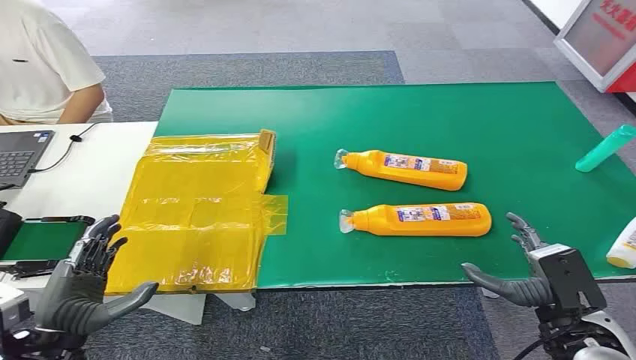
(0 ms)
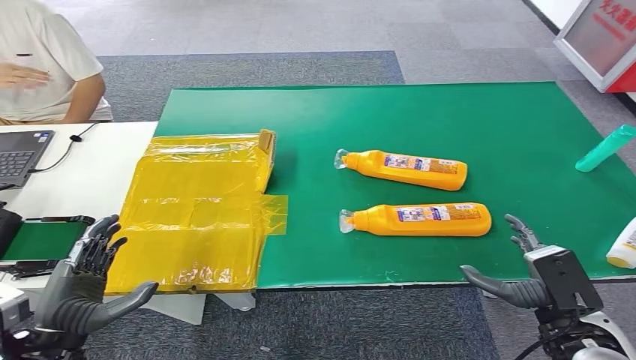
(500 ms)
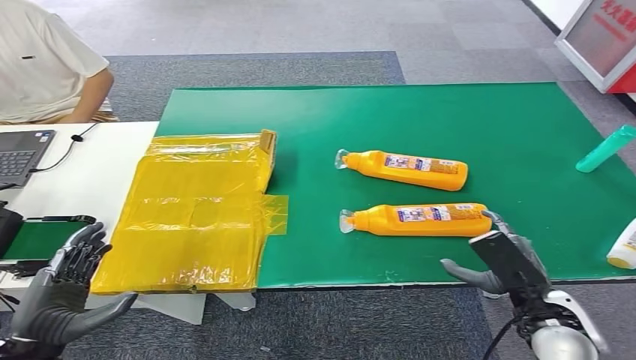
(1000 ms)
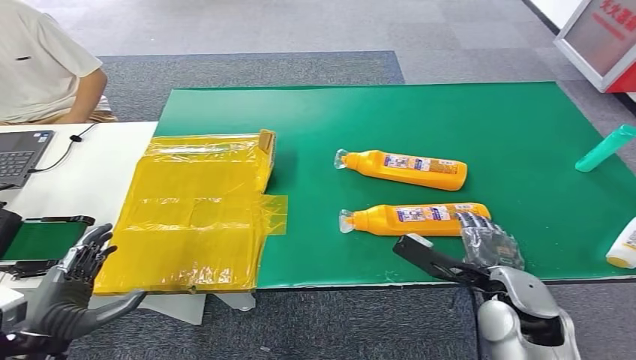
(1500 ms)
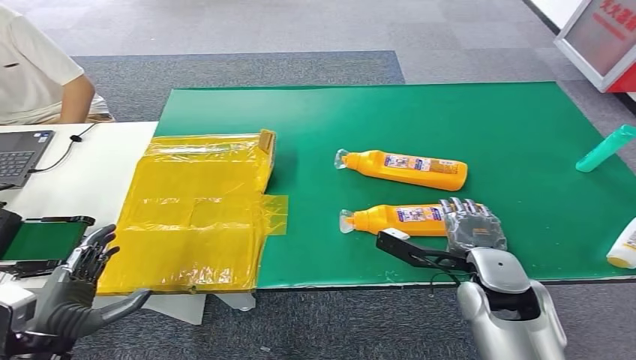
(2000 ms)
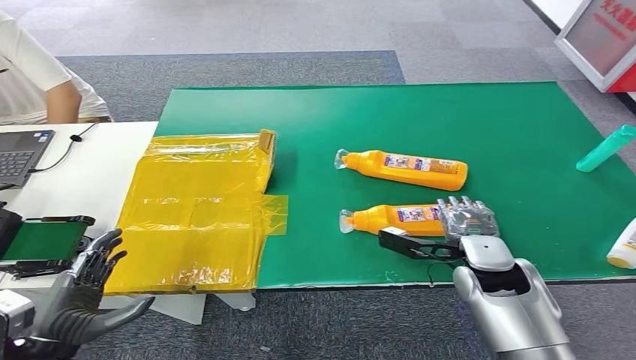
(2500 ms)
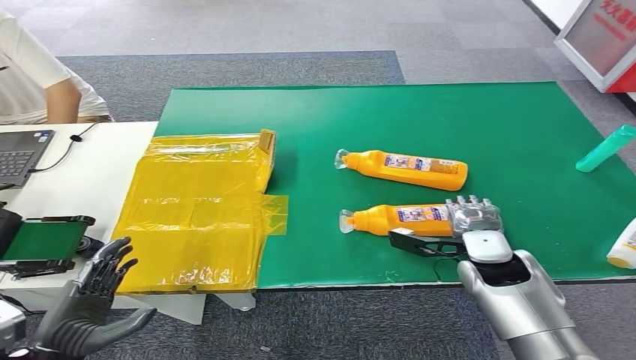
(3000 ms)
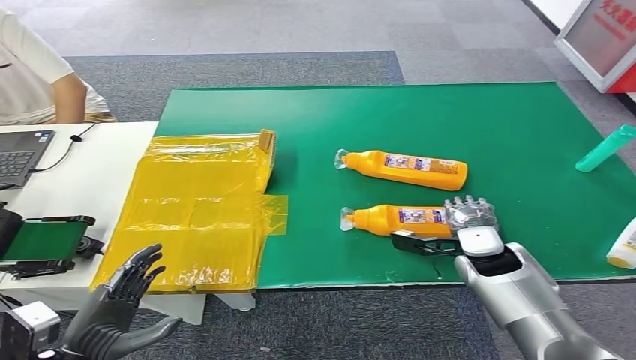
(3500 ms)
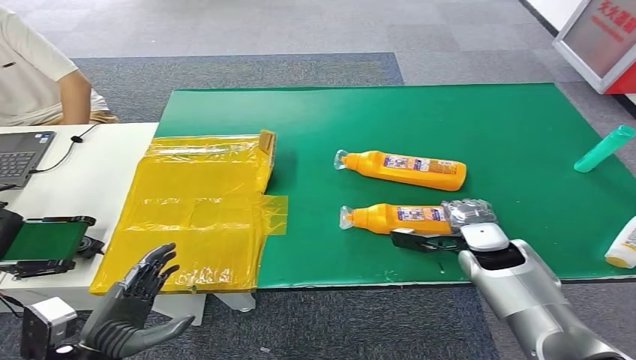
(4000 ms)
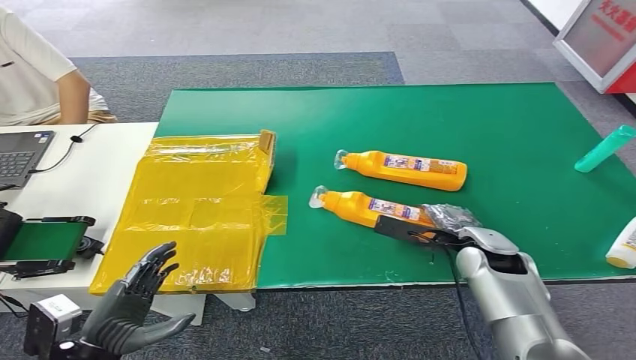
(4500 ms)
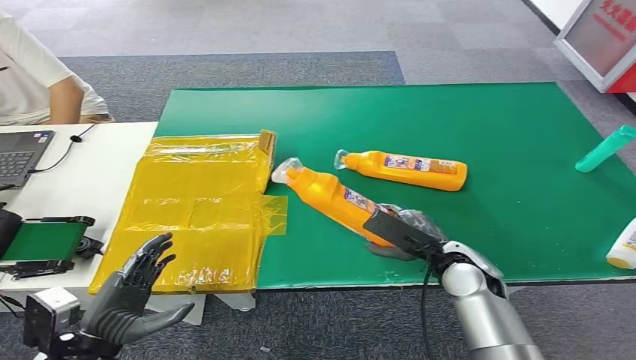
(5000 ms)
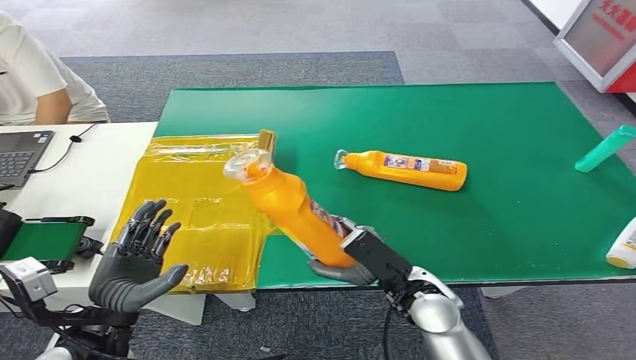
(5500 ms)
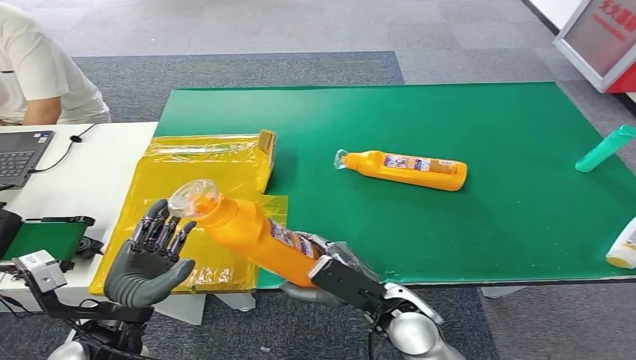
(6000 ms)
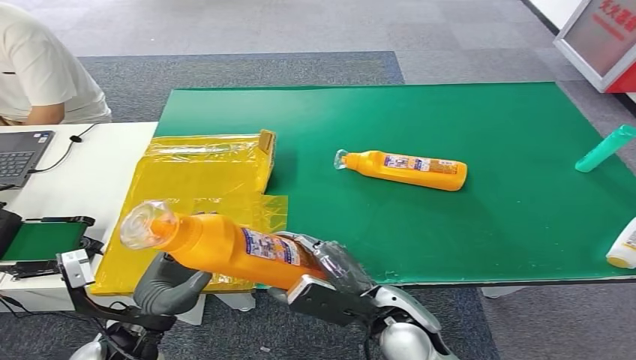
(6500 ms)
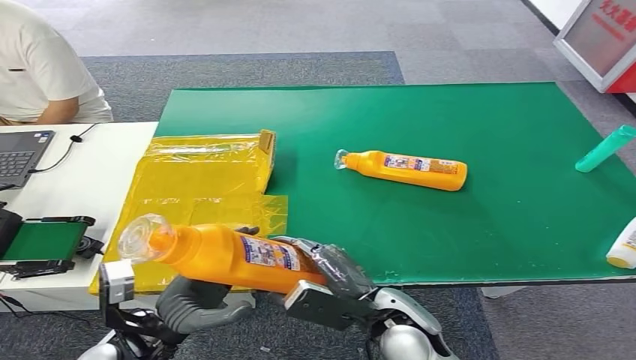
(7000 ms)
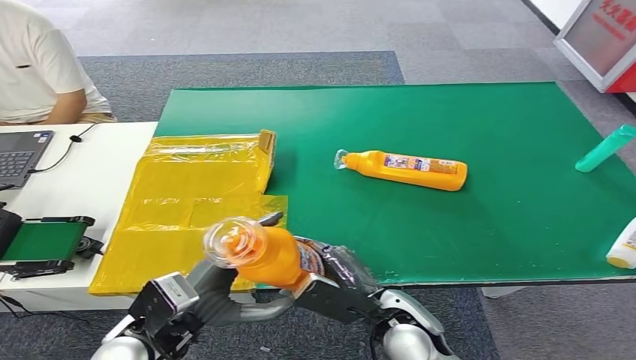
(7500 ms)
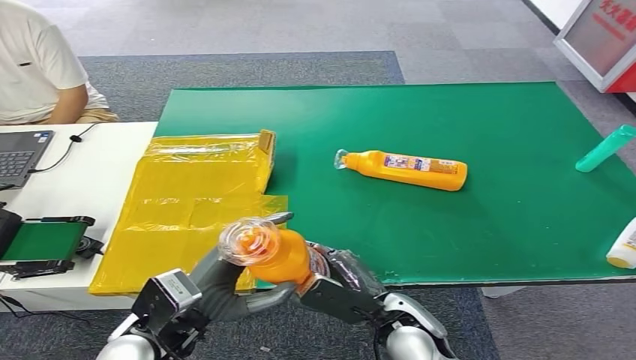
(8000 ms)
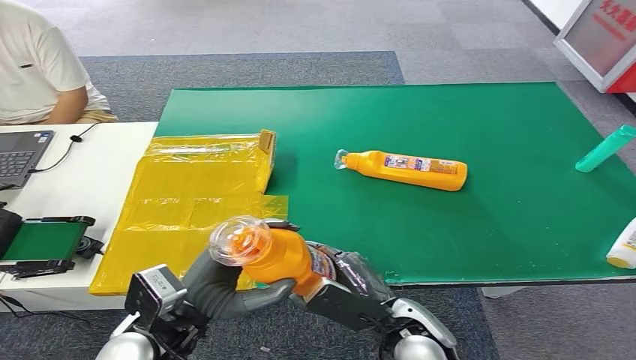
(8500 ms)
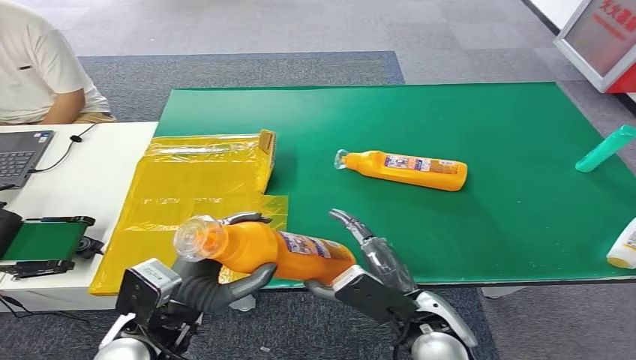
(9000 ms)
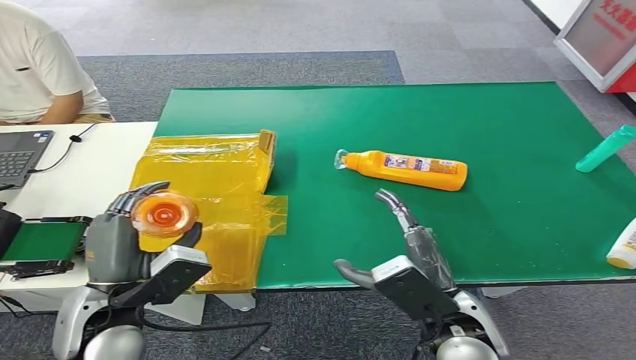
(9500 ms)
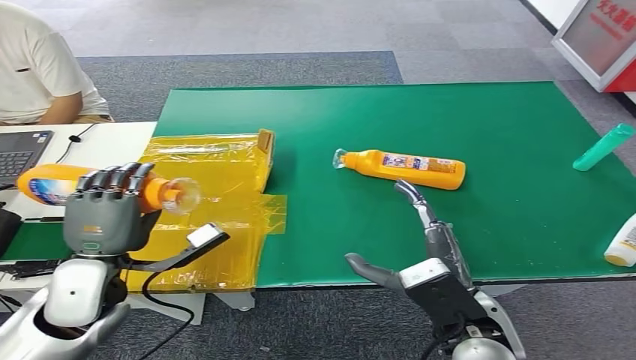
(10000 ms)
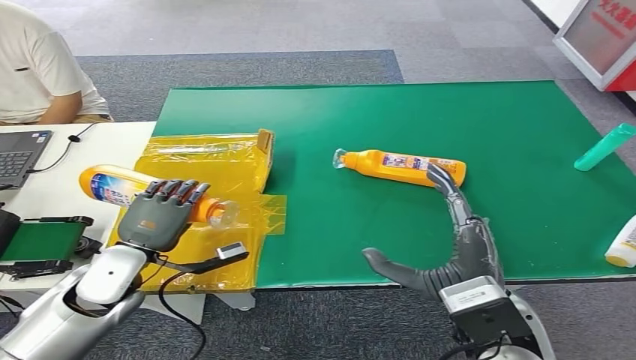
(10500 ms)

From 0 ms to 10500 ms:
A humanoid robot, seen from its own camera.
Step, from 0 ms to 5000 ms: Pick up the bottle from the table.
From 2000 ms to 4000 ms: The right hand moves forward and downward, some 10 cm. The left hand moves roughly 5 cm.
From 4000 ms to 6500 ms: The right hand travels to the left and backward by some 20 cm; the left hand goes some 10 cm to the right and forward.
From 6500 ms to 8500 ms: The left hand shifts some 5 cm to the right.

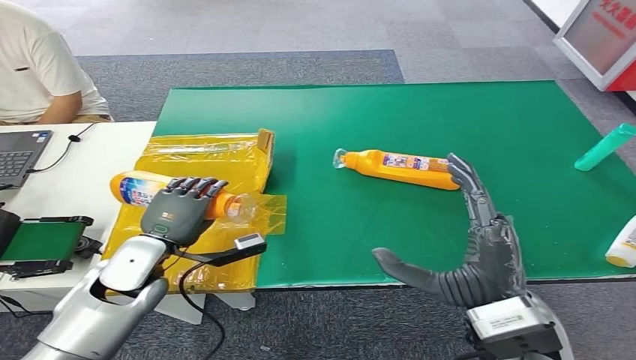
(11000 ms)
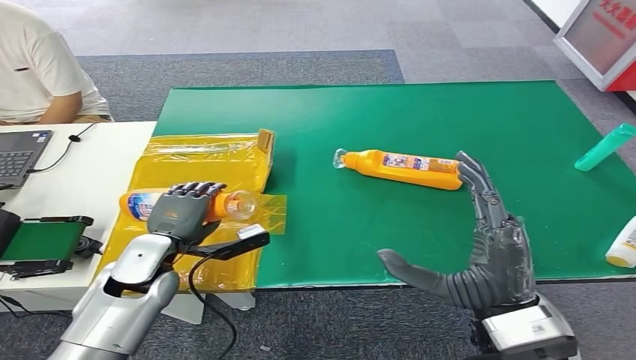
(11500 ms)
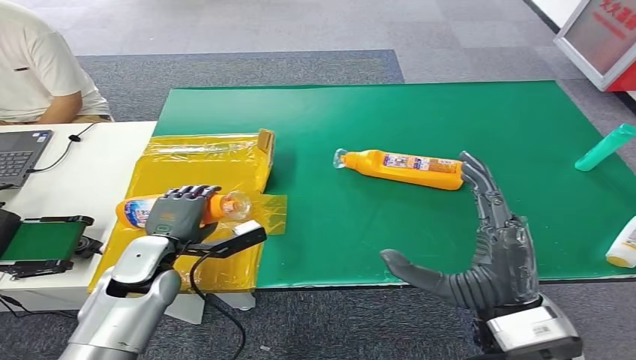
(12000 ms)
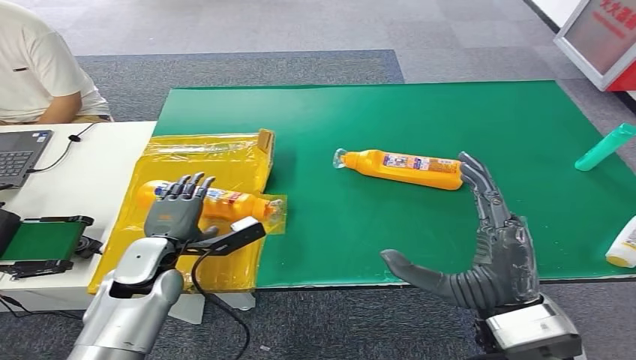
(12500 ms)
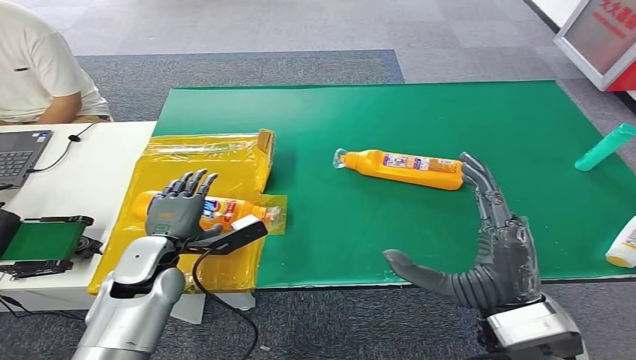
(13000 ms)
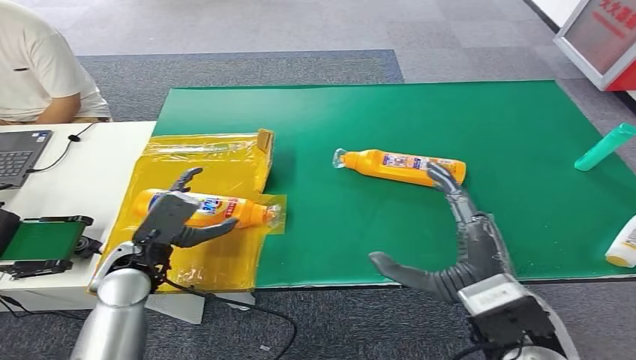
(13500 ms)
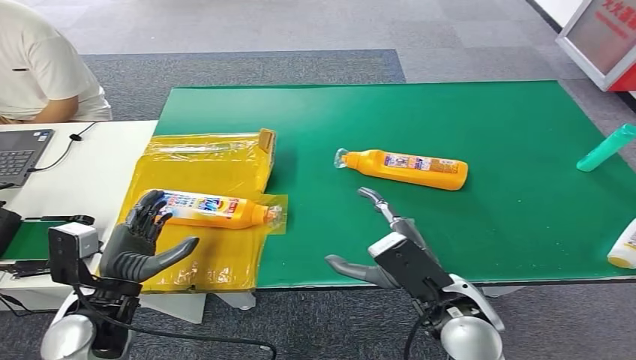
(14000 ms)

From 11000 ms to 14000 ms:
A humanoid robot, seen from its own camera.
Step, from 11000 ms to 14000 ms: Turn the bottle to the front side.
From 12500 ms to 14000 ms: The left hand travels backward by approximately 10 cm. The right hand heads downward, covering roughly 5 cm.

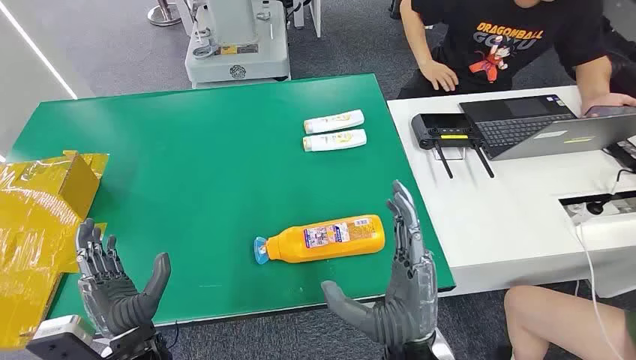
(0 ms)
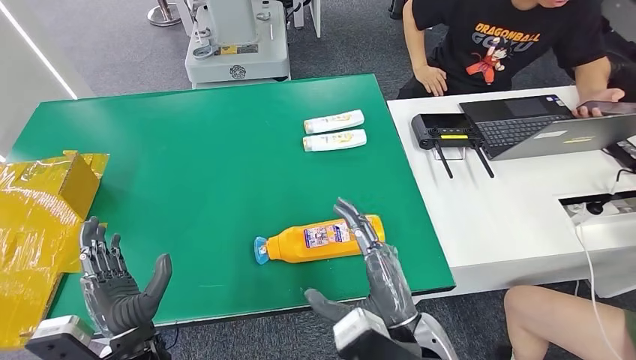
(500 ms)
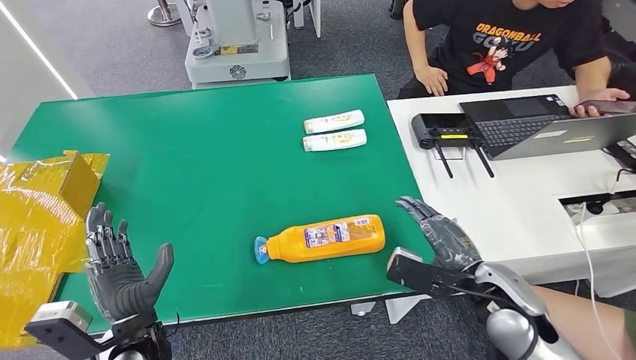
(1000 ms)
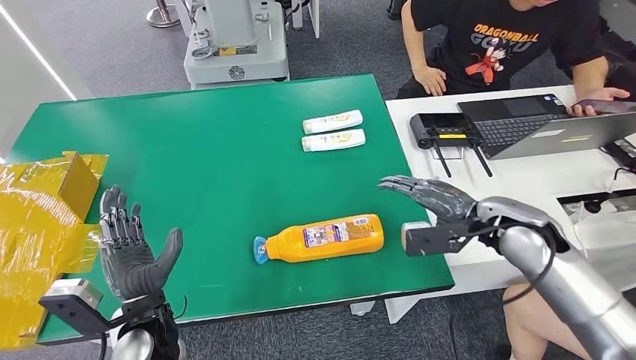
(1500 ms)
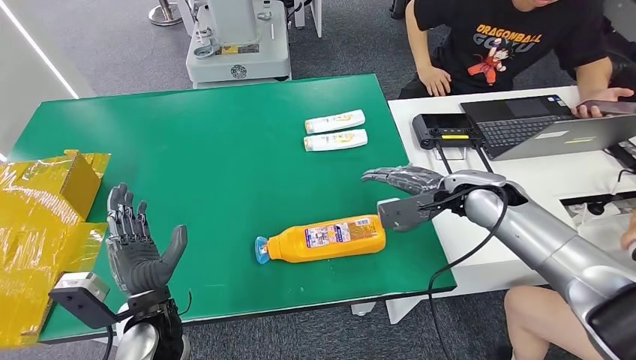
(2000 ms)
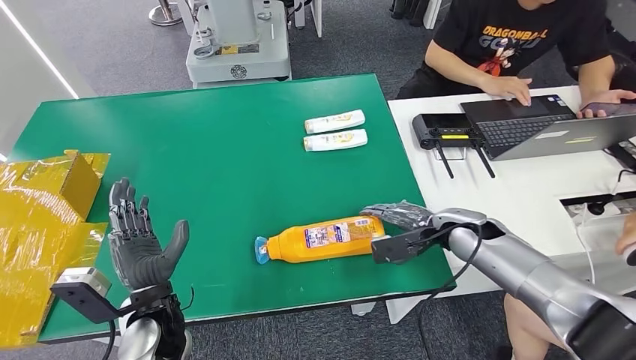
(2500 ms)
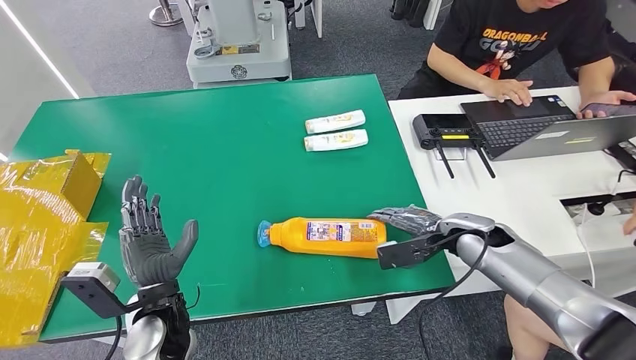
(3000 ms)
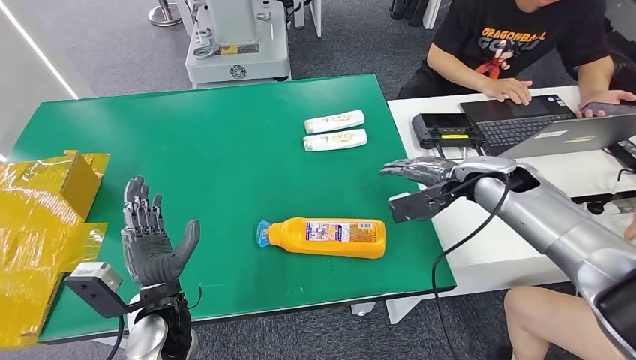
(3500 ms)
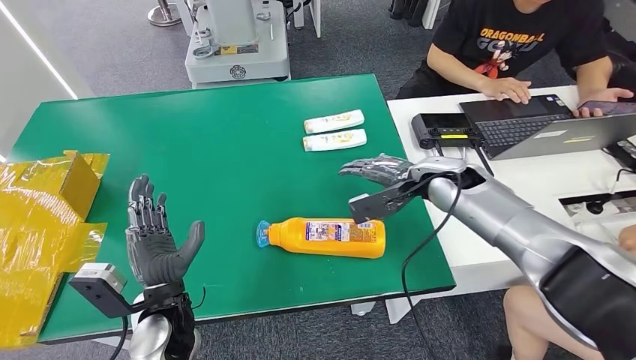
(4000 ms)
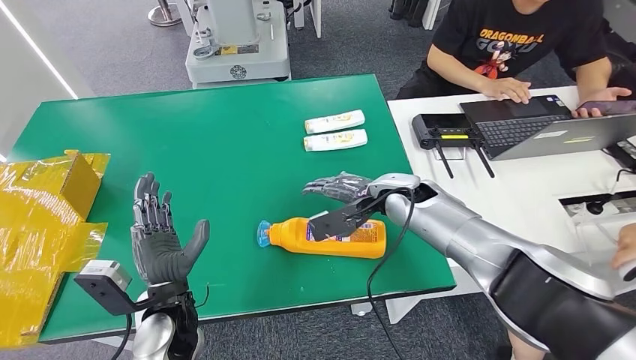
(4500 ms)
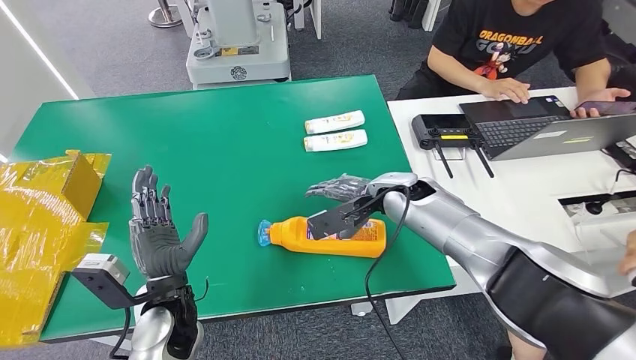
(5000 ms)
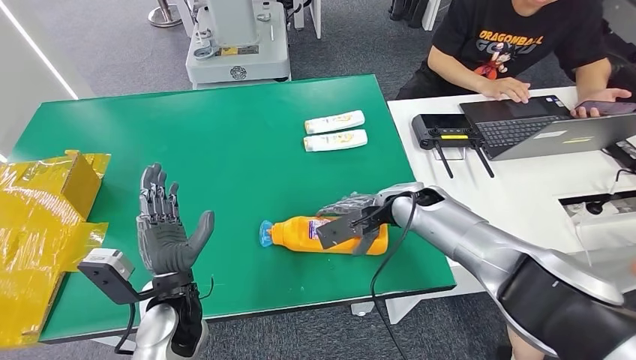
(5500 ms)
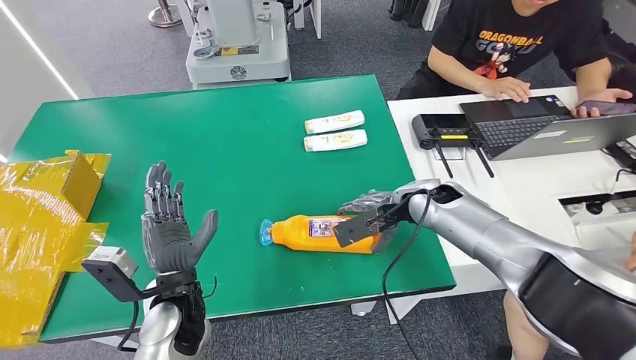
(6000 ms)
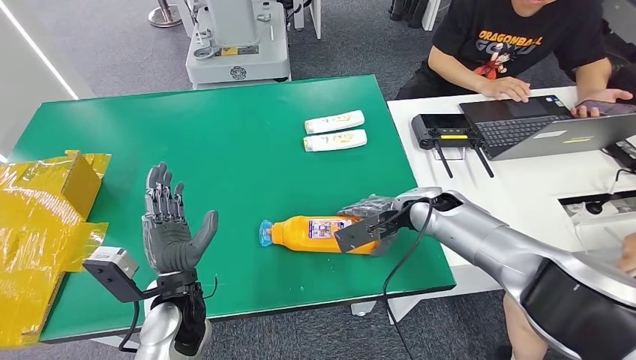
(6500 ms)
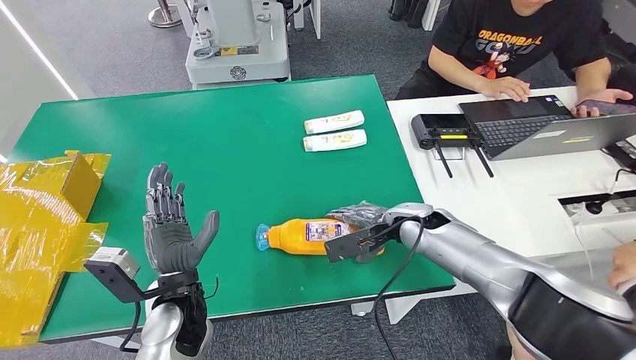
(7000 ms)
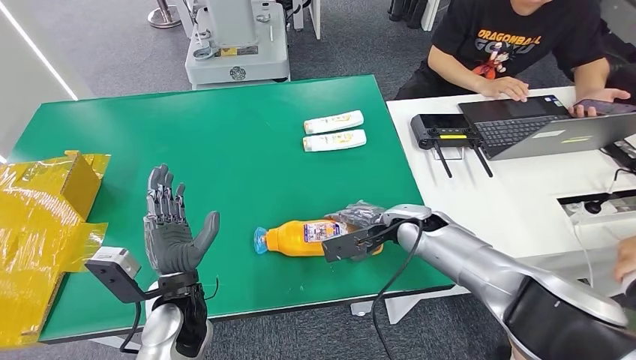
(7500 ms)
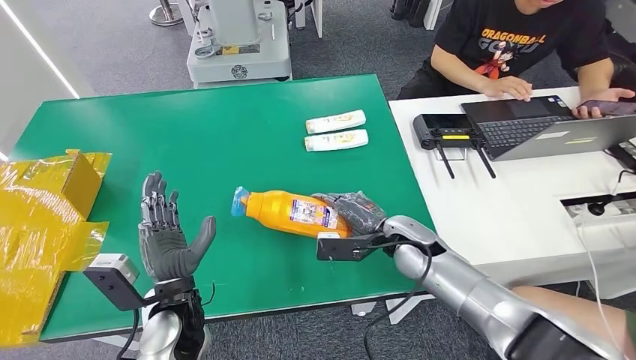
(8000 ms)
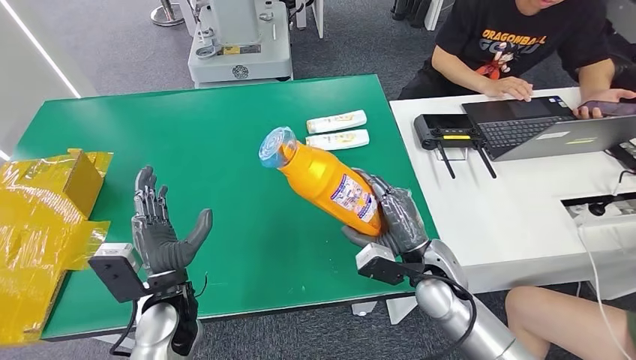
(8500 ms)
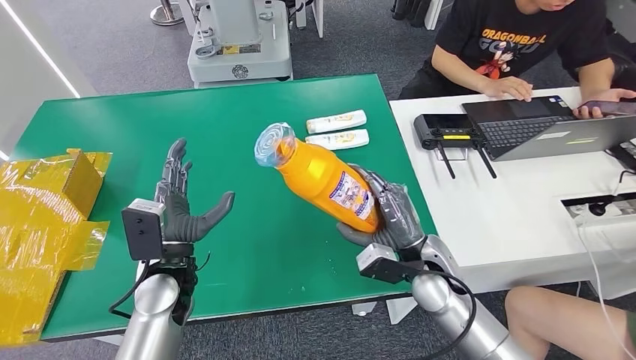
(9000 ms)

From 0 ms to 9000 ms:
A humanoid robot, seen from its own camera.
Step, from 0 ms to 8500 ms: Pick up the bottle from the table.
From 4500 ms to 7000 ms: The right hand moves about 5 cm.
